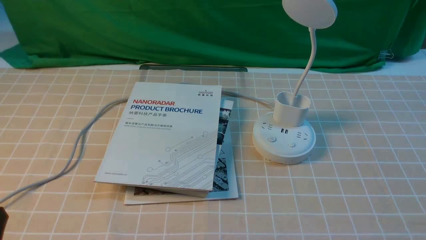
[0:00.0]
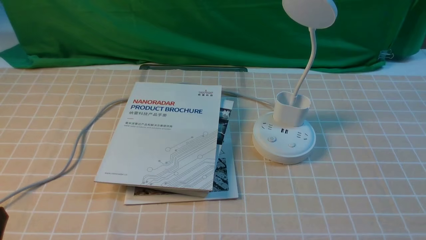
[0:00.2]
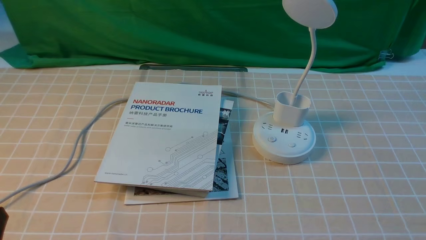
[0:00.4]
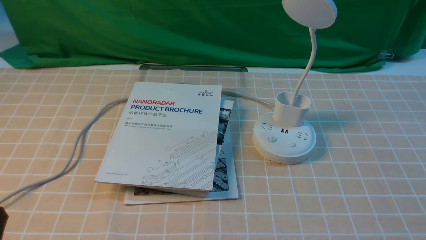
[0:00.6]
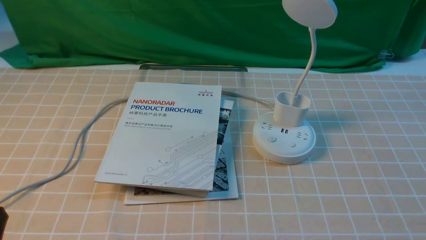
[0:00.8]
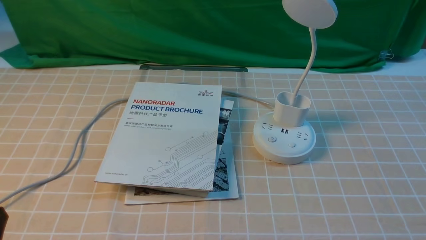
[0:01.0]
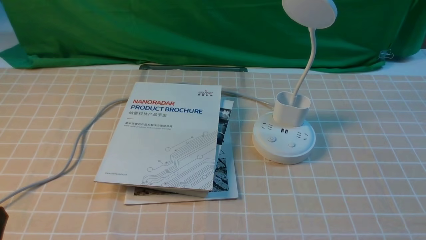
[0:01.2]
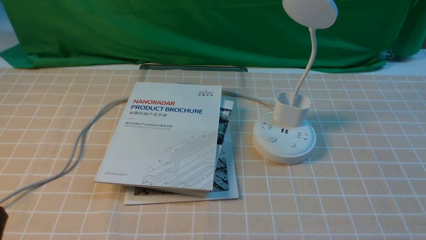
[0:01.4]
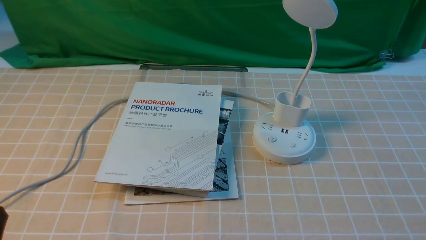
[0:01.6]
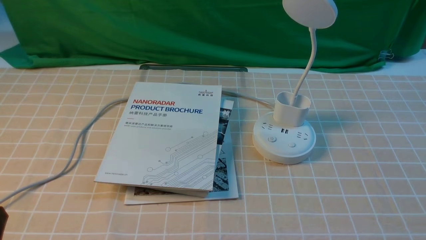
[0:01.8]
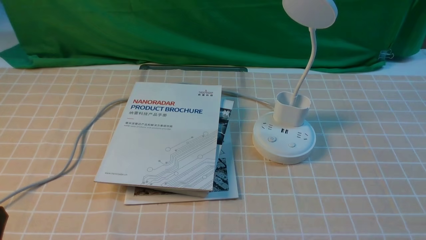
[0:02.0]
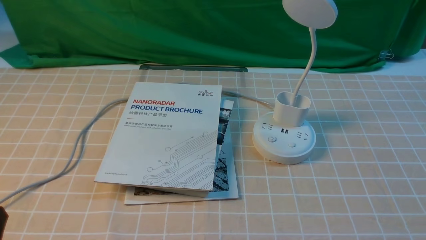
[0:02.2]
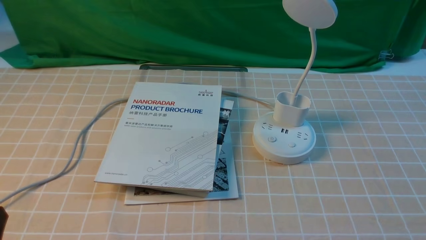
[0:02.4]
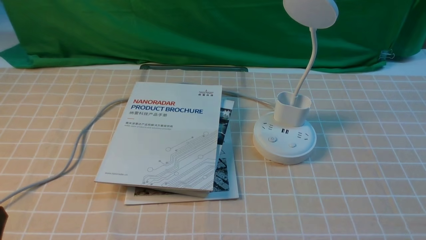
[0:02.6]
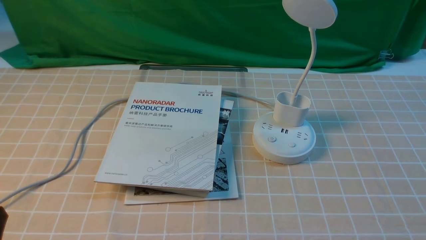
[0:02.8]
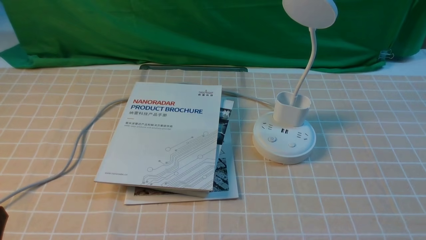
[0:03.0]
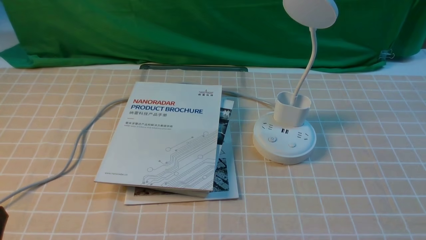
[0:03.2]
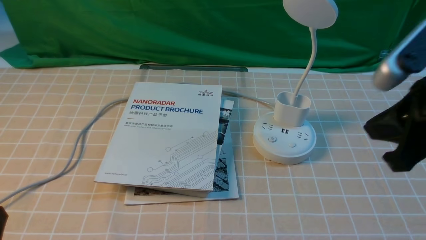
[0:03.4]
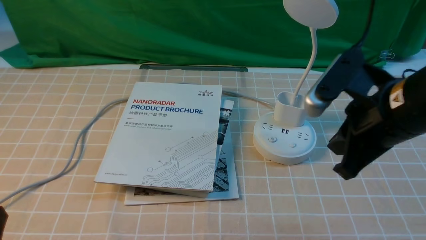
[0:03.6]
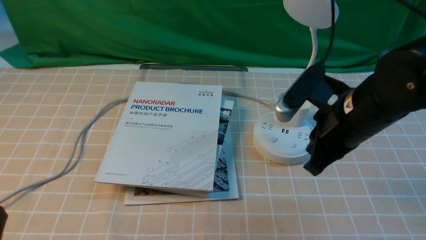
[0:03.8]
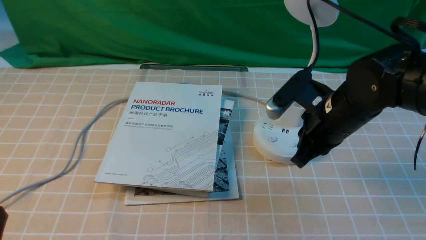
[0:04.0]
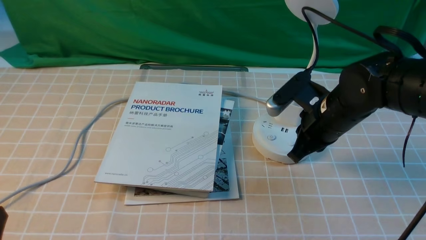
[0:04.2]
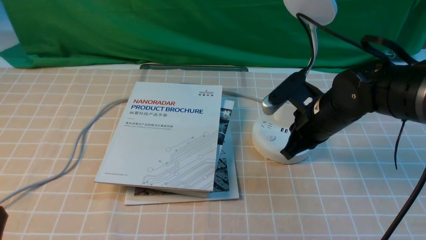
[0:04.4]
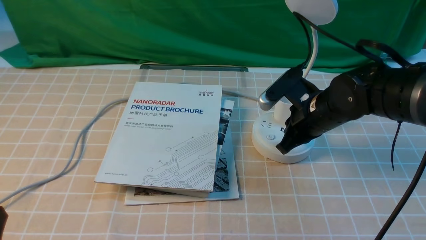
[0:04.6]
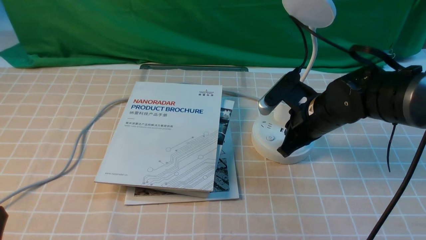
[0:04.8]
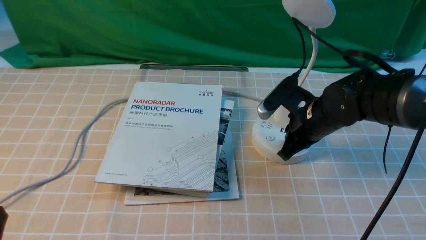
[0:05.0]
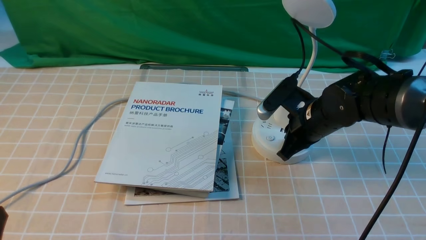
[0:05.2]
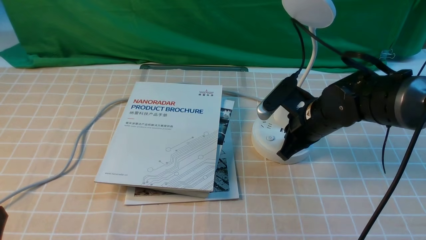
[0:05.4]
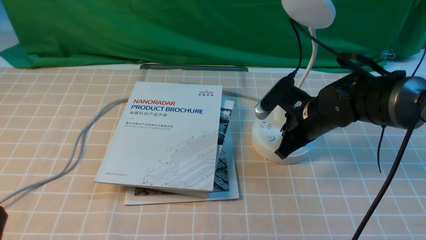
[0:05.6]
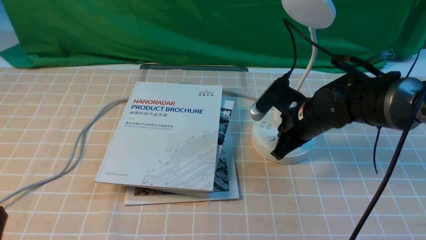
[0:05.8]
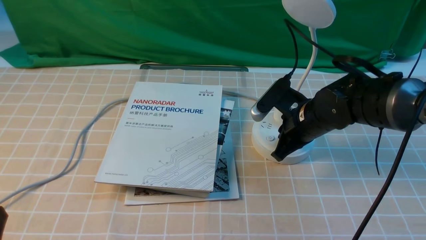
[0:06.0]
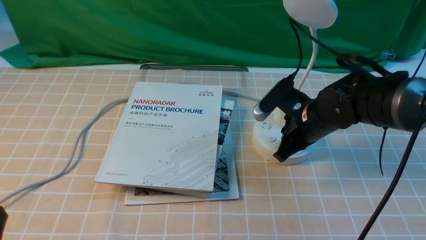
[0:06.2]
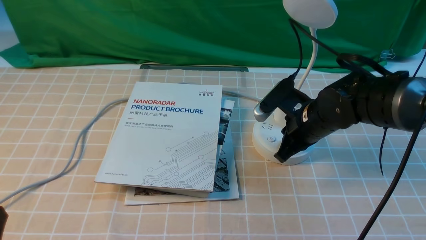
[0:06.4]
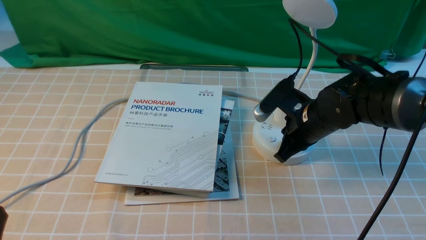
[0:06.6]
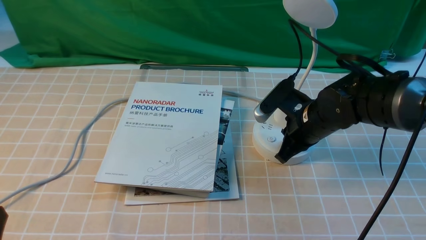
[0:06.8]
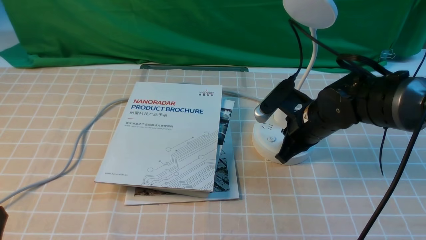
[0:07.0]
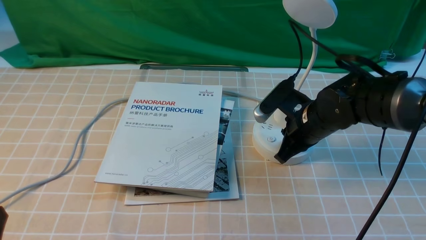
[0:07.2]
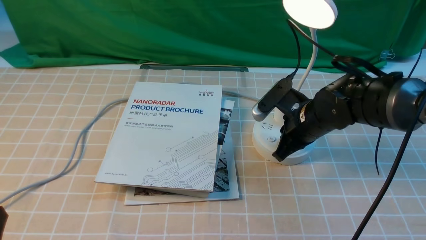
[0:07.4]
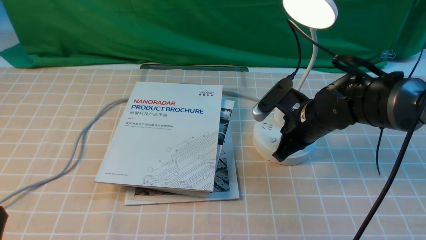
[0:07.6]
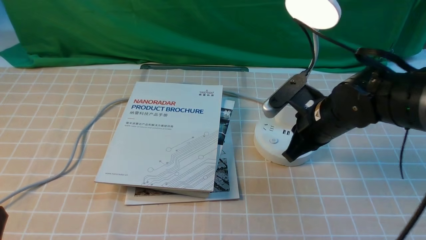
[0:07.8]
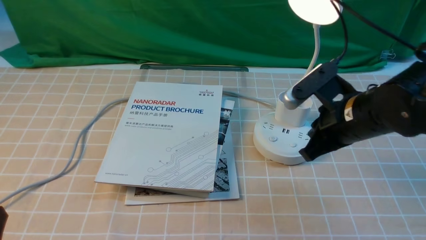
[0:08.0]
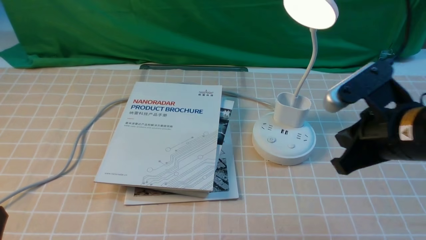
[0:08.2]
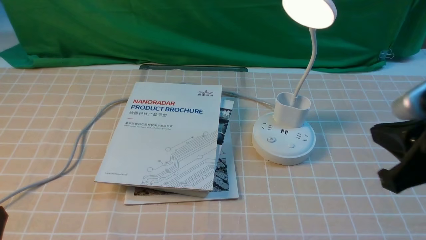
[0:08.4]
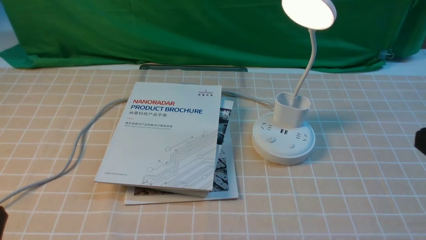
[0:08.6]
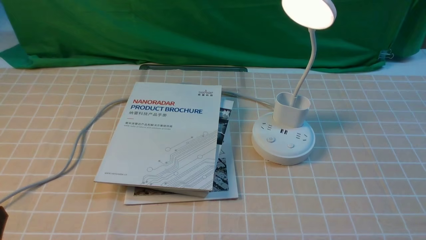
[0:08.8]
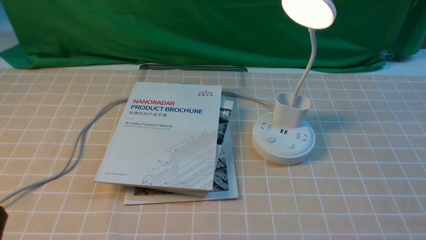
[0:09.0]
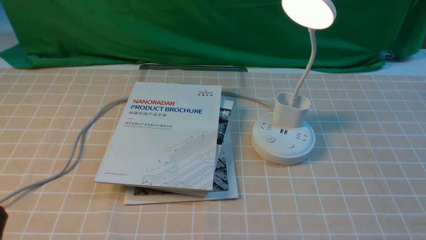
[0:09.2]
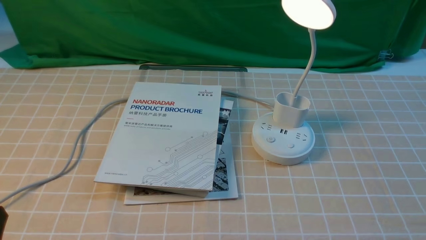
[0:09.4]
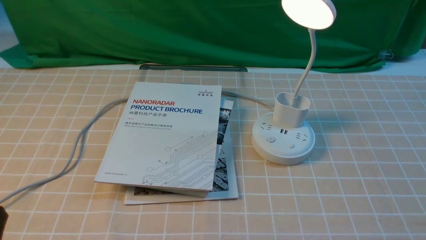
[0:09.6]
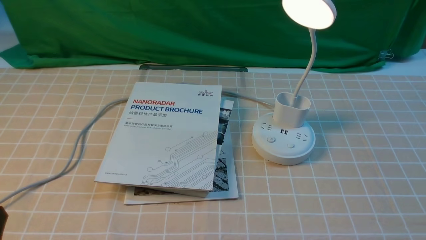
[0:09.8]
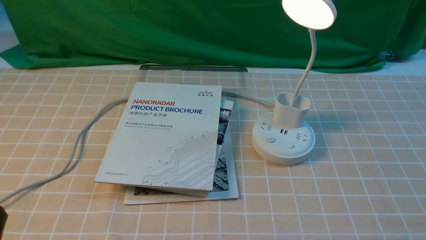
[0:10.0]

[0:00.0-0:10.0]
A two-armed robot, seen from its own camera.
Step, 0:00.0 to 0:08.0: use the right arm to press the button switch on the lamp holder.
0:02.8 to 0:04.2: The right gripper travels forward and to the left by approximately 30 cm, and closes its fingers.
0:04.2 to 0:05.8: The right gripper heads downward, covering about 5 cm.
0:05.8 to 0:07.2: Both grippers stay about where they are.
0:07.2 to 0:08.6: The right gripper moves backward, upward and to the right, roughly 25 cm.

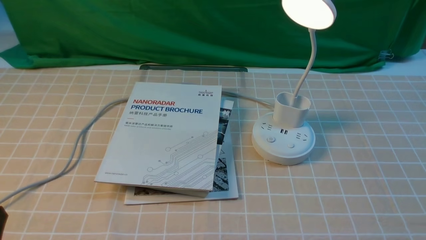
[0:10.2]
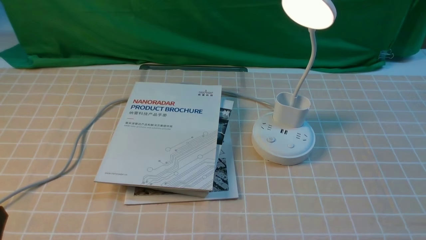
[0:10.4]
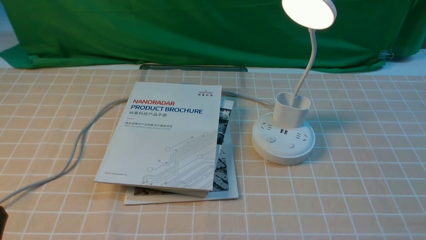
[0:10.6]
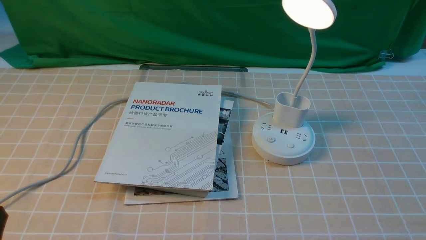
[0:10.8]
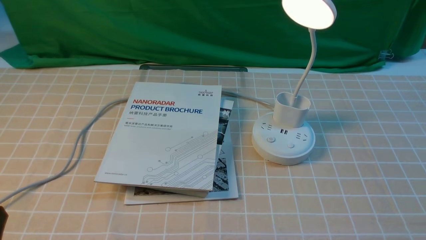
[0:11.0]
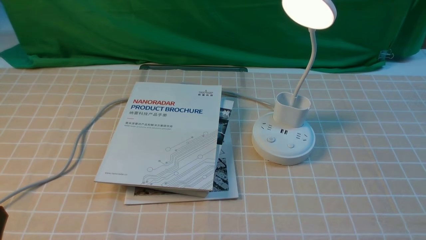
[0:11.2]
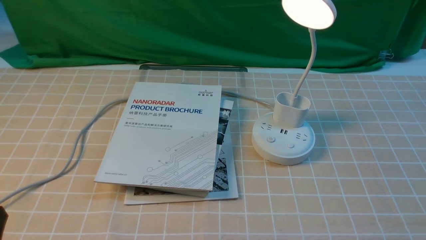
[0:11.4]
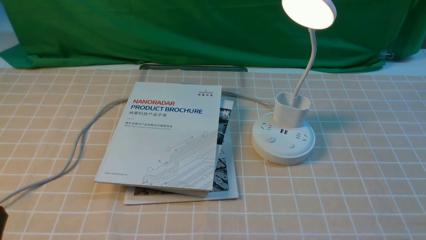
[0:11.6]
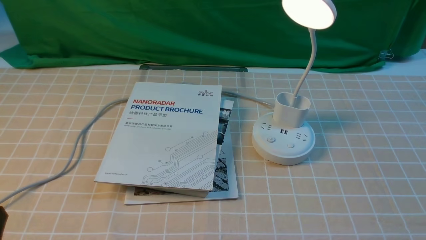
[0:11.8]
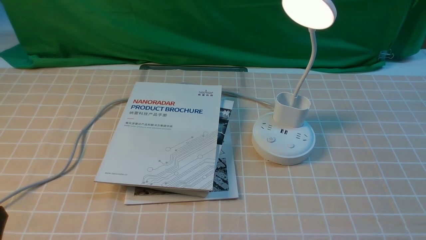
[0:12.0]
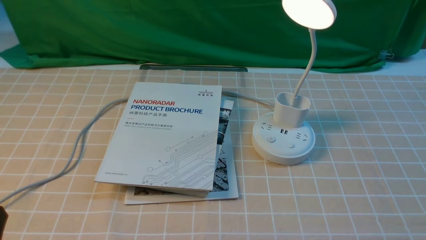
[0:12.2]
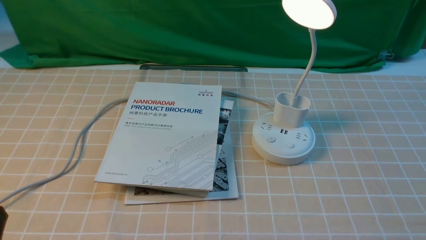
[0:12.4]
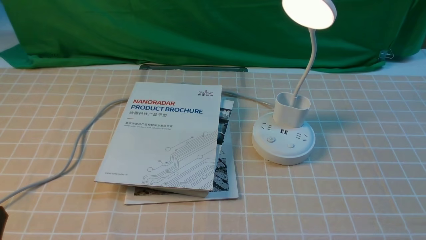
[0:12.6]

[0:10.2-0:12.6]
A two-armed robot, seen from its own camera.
0:11.4 to 0:12.6: The two grippers keep their place.
